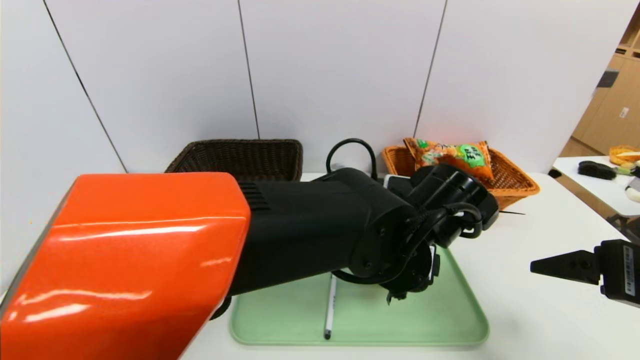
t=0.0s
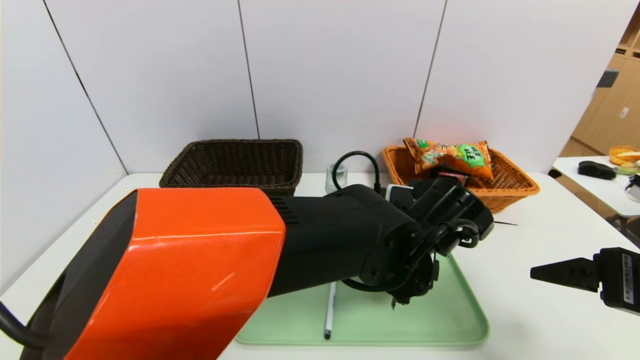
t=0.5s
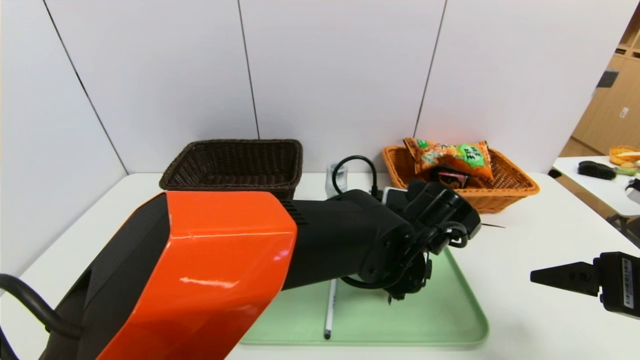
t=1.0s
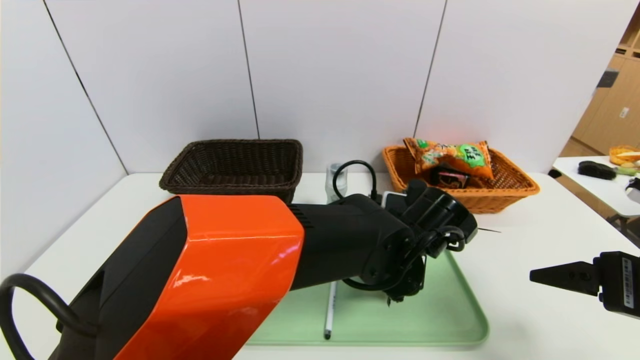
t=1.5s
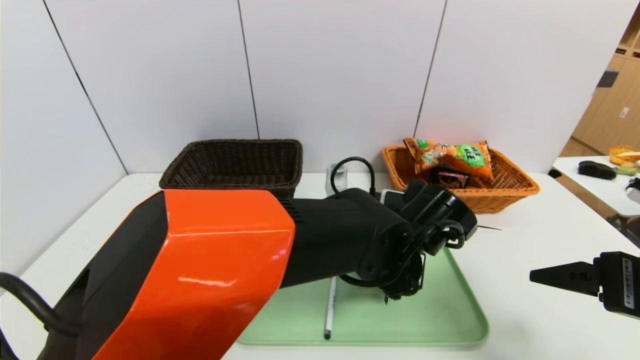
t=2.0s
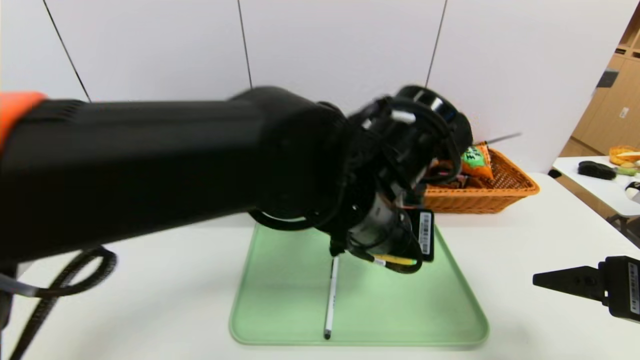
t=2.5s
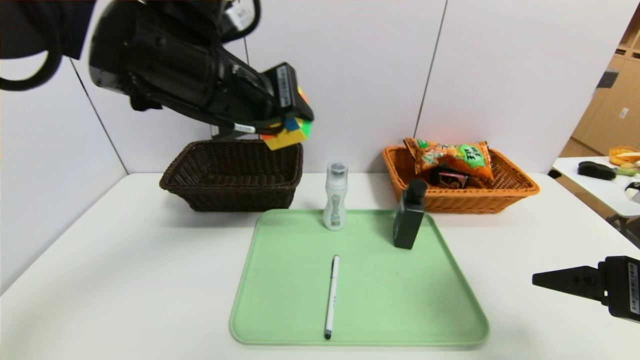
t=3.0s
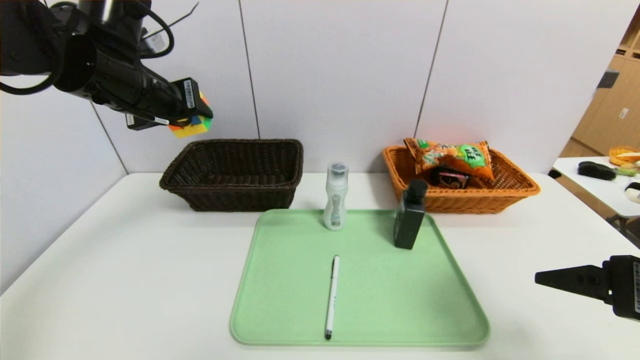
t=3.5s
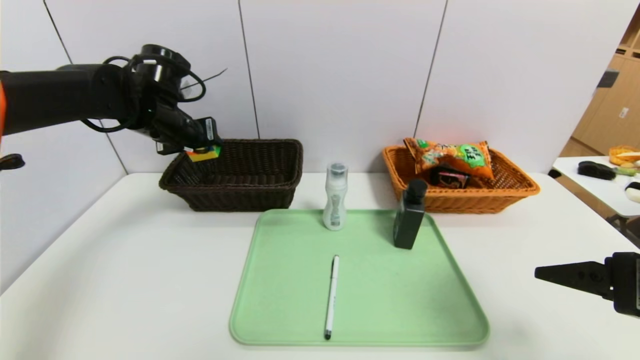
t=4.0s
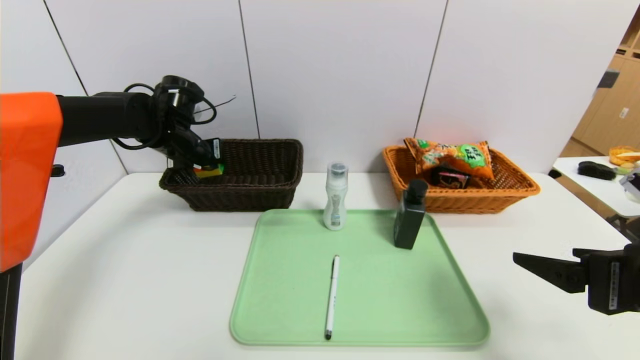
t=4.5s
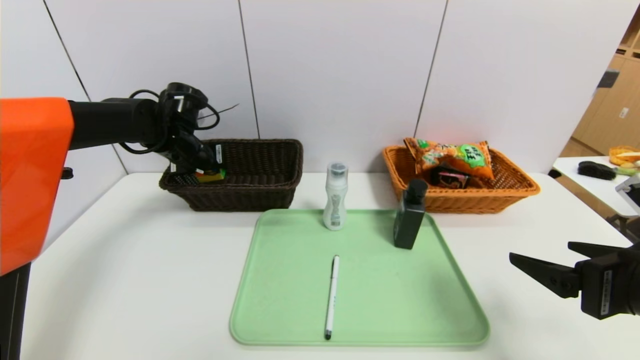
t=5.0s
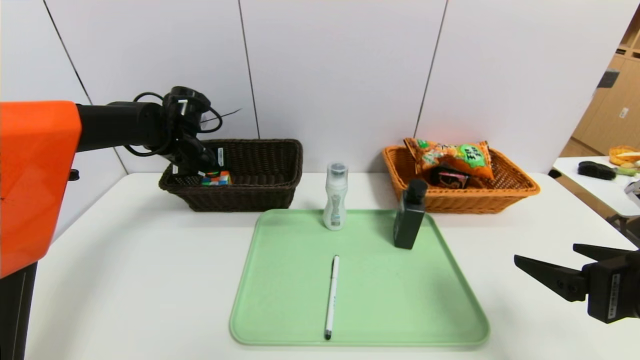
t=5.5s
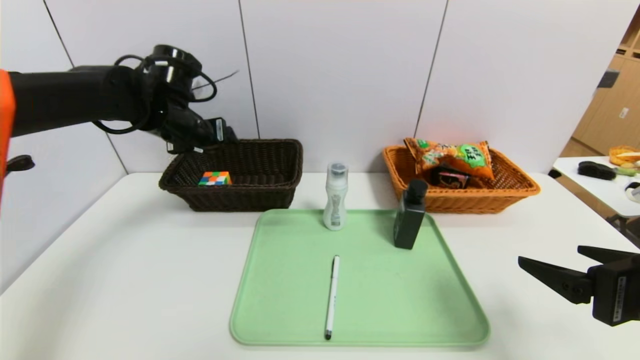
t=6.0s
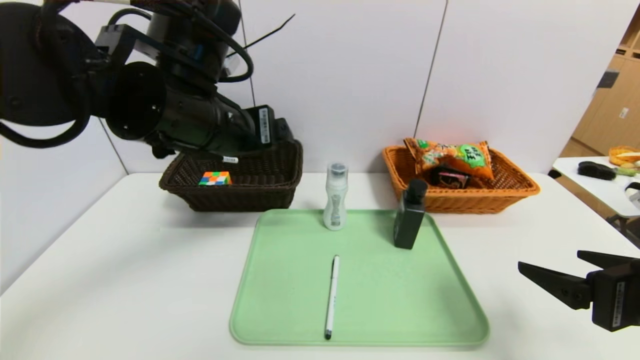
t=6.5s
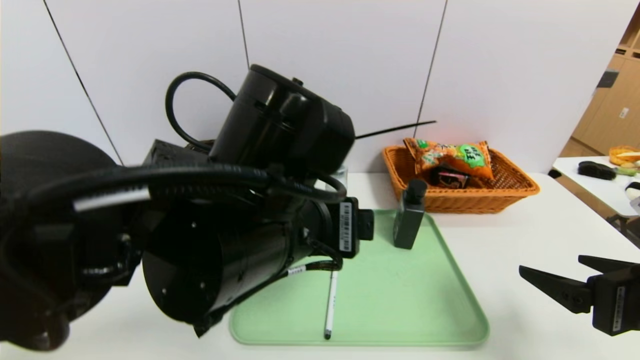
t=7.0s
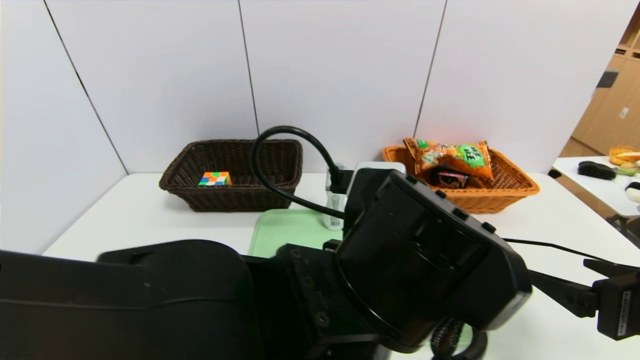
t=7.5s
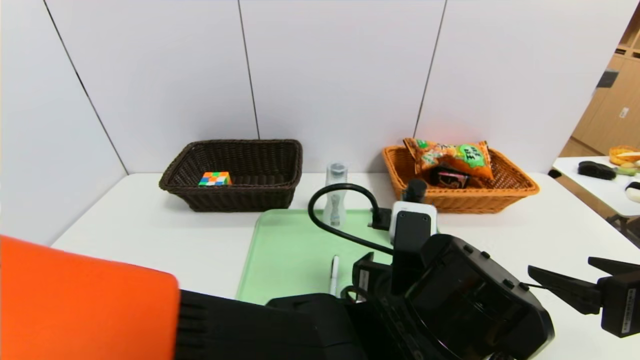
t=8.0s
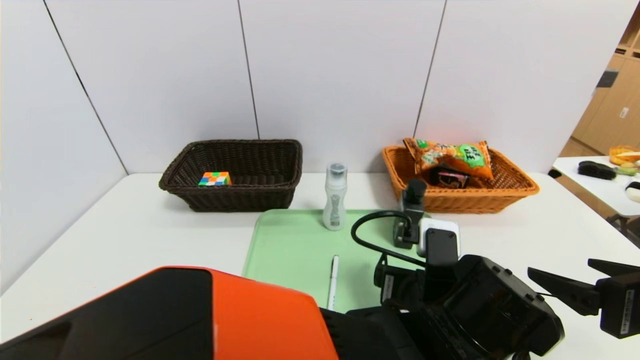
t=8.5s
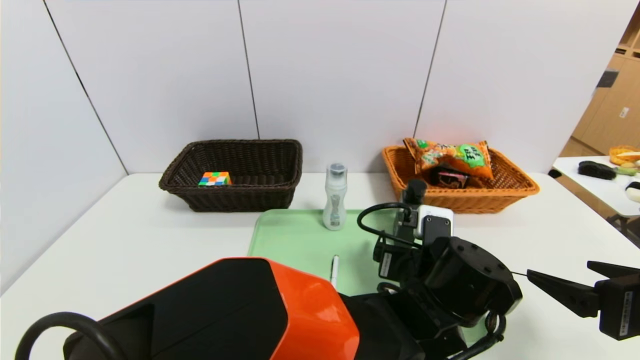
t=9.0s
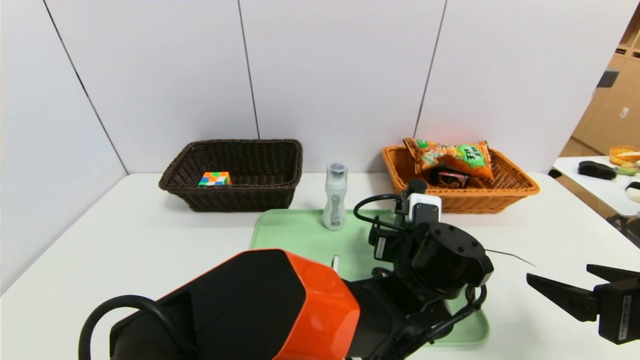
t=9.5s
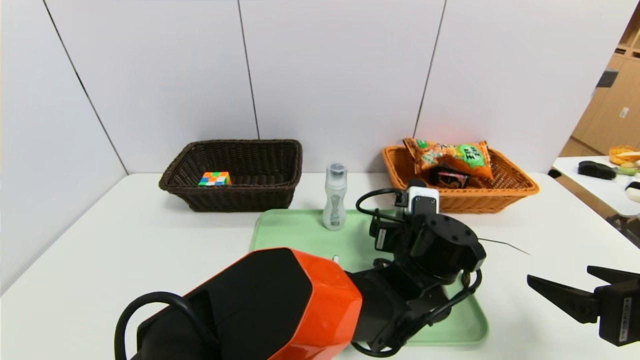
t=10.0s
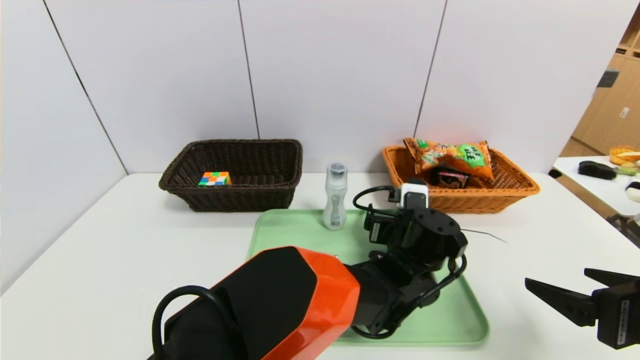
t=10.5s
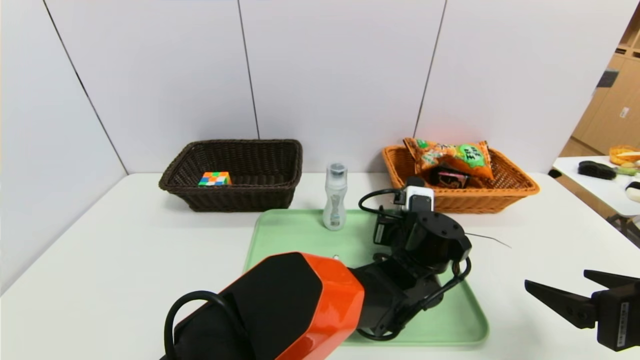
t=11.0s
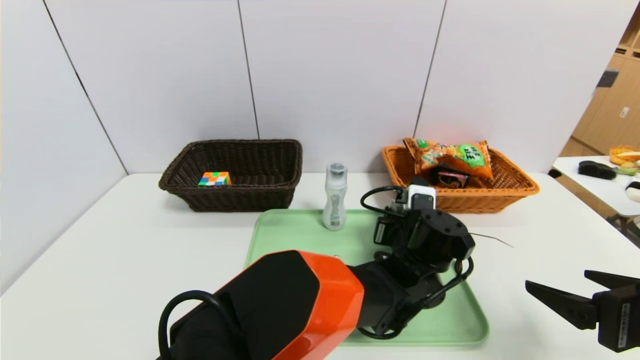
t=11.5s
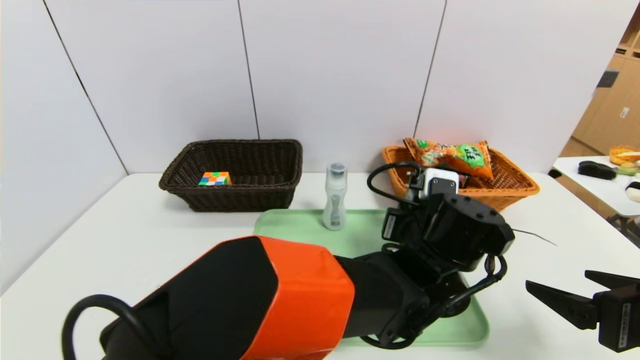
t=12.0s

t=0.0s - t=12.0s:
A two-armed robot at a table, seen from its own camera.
Task of the whole recording: place the food in the right basket with the right gripper, and place the non food items in the left basket with the left gripper.
Step, t=0.0s - t=5.5s: Grasp the rubiks cube and put it in the left basket.
t=0.0s - t=2.0s: The left gripper closes up.
t=2.0s - t=4.0s: The left gripper moves to the left and forward, some 35 cm.
t=4.0s - t=6.0s: The left gripper moves about 5 cm downward and comes back.
t=6.0s - t=8.0s: The left gripper moves to the right, backward and downward, about 40 cm.
t=8.0s - t=10.0s: The left gripper shifts roughly 15 cm forward, to the right and downward.
t=10.0s - t=12.0s: The left gripper is displaced upward by roughly 5 cm, and closes up.

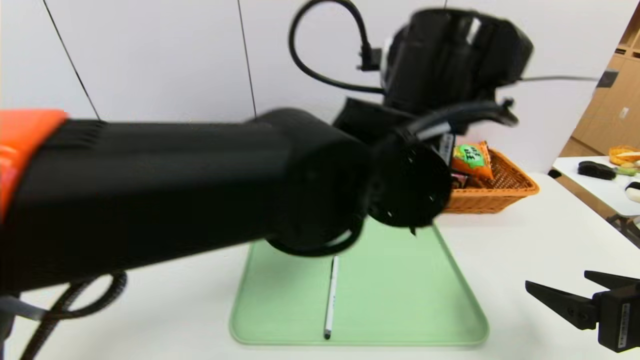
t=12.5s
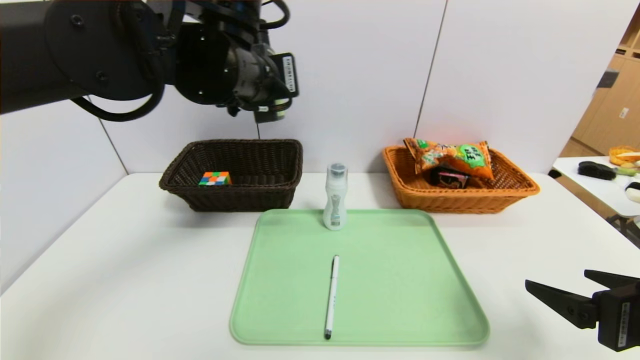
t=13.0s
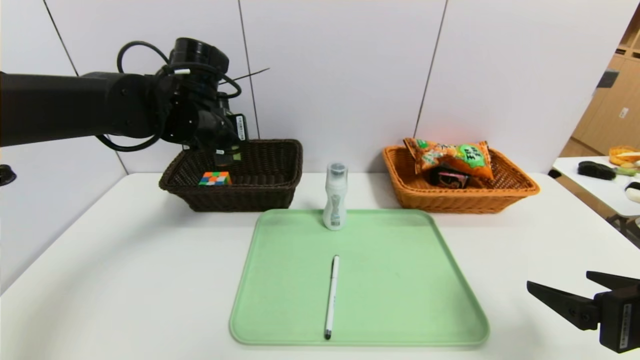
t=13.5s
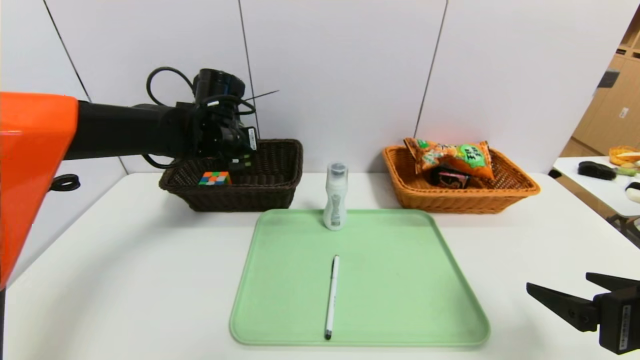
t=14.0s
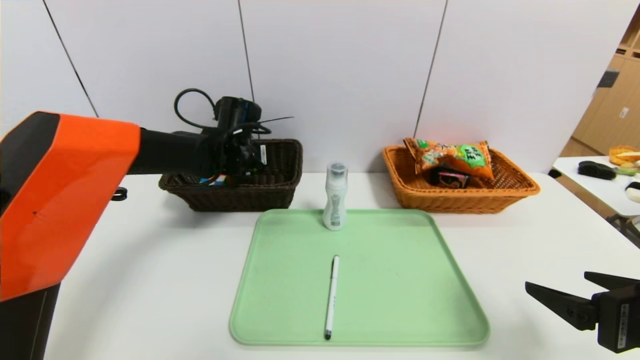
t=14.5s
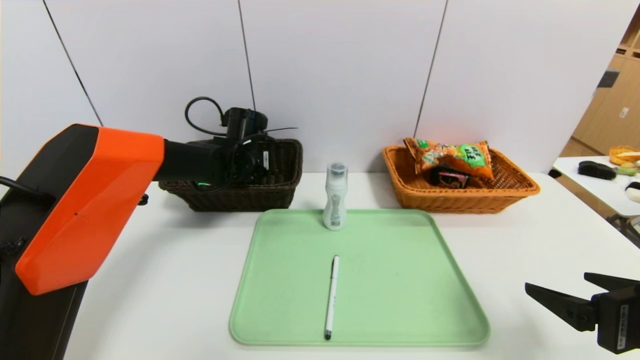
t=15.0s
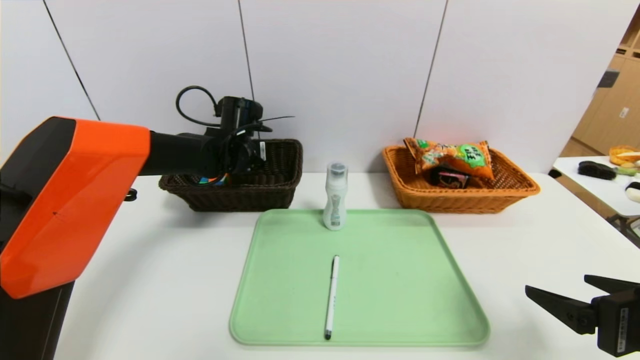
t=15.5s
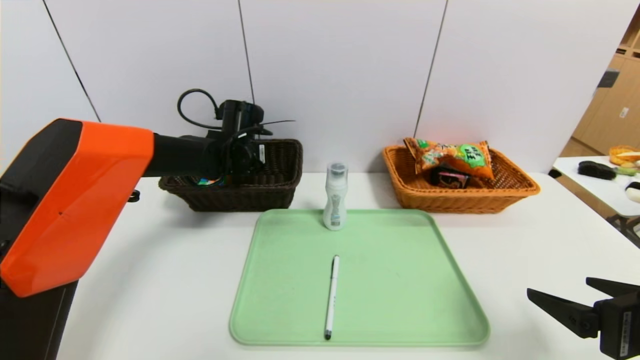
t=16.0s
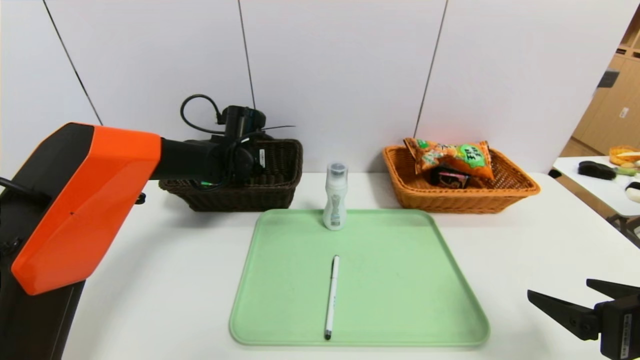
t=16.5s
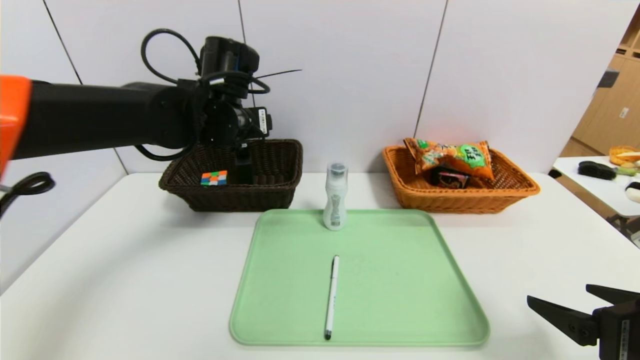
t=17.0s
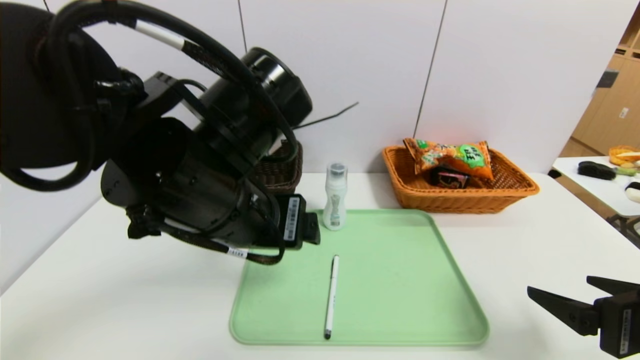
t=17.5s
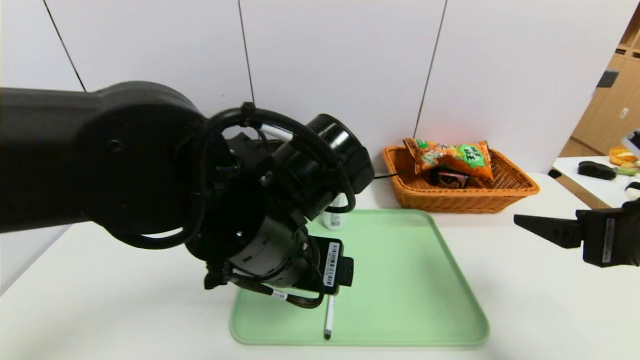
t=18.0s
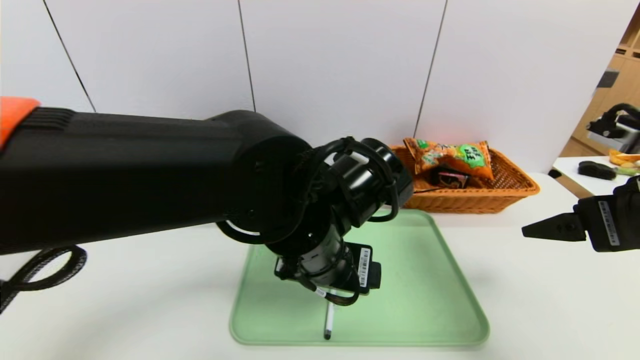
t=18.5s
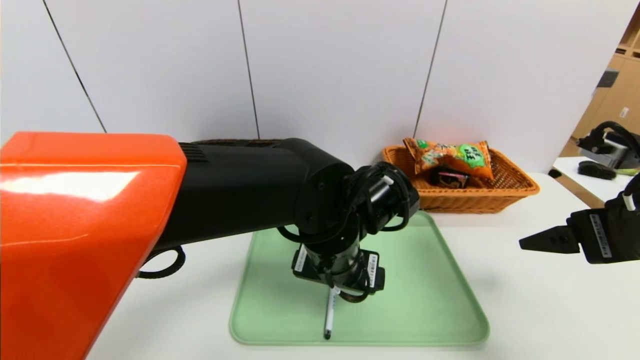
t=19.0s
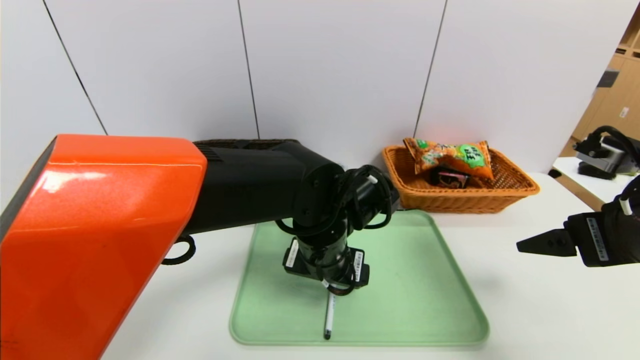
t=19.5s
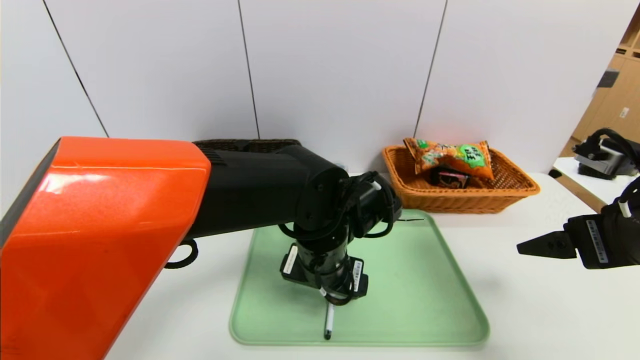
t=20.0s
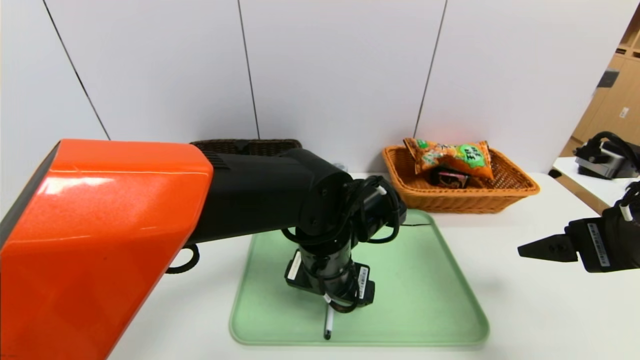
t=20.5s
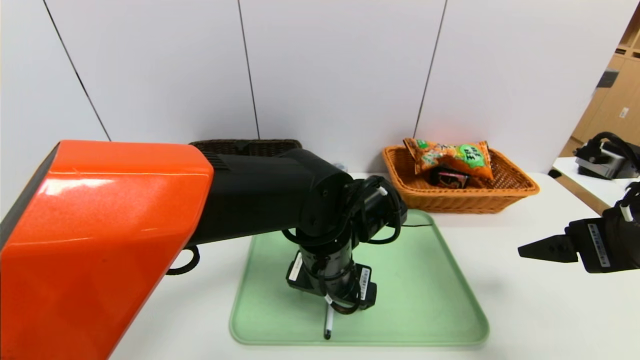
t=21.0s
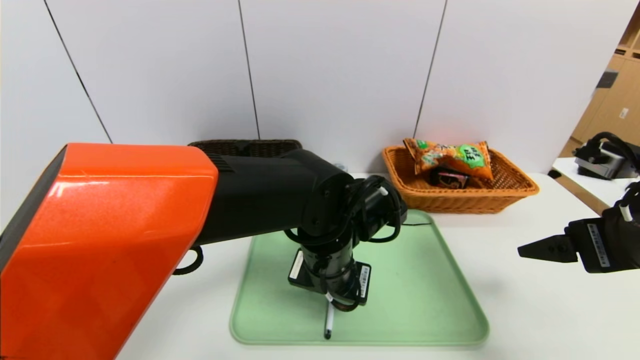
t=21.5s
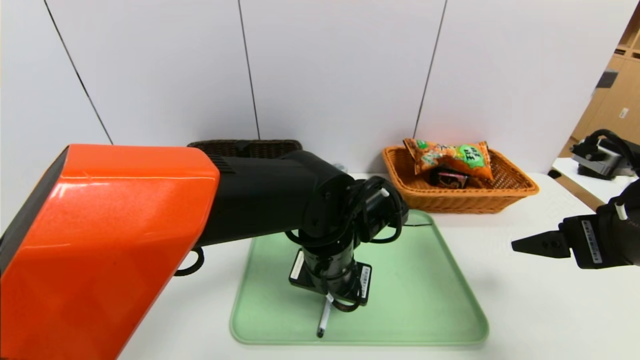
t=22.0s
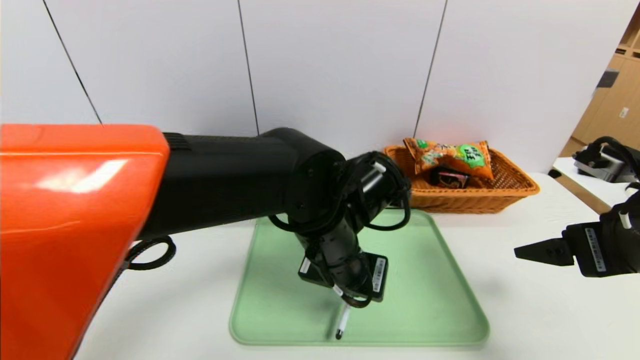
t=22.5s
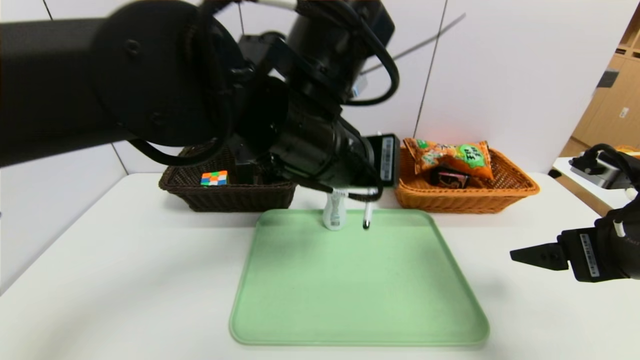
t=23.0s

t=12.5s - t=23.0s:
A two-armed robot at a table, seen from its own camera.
Task of the whole recording: place the food in the right basket with the right gripper, and place the non food items in the left basket with the left gripper.
Step, t=12.5s - t=17.5s: Grasp the shampoo and put it in the left basket.
t=12.5s - t=14.5s: The left gripper is displaced forward, to the left and downward by about 30 cm.
t=14.5s - t=16.5s: The left gripper opens.
t=16.5s - t=19.0s: The right gripper shifts roughly 10 cm upward and forward; the left gripper travels backward and to the right by about 25 cm.
t=19.0s - t=21.0s: There are only small adjustments of the grippers.
t=21.0s - t=23.0s: The left gripper travels upward by approximately 15 cm, and closes up.
